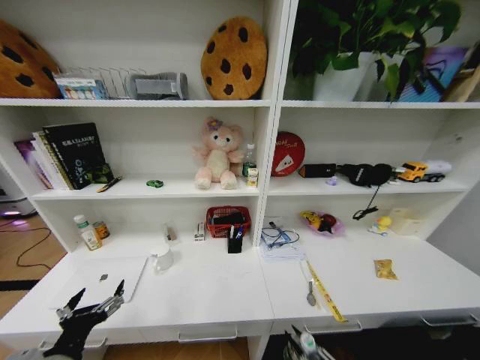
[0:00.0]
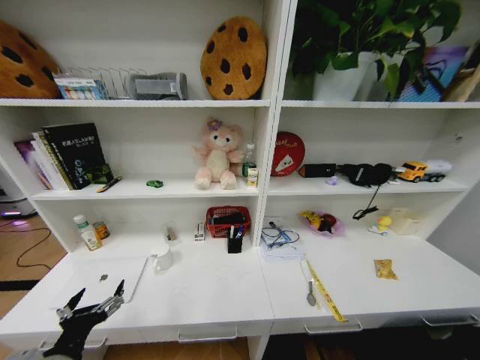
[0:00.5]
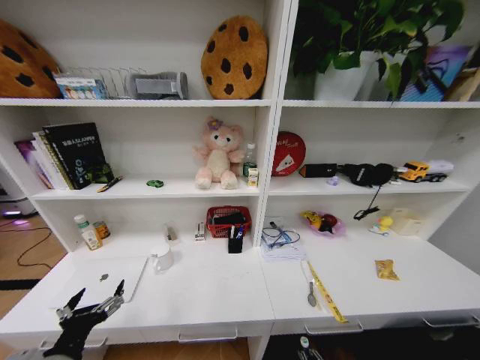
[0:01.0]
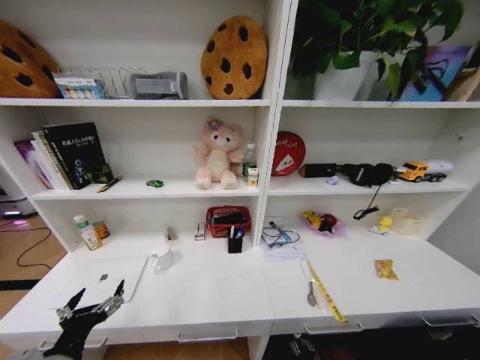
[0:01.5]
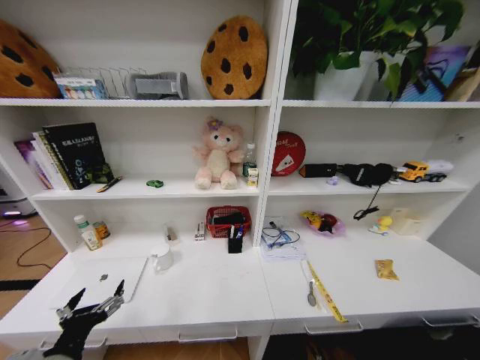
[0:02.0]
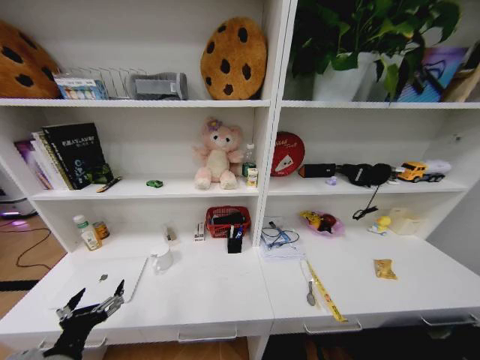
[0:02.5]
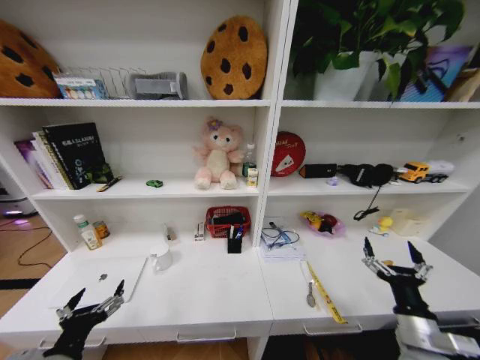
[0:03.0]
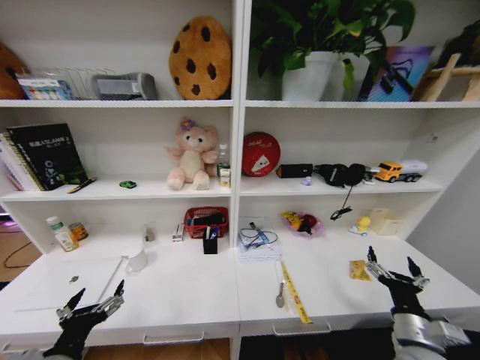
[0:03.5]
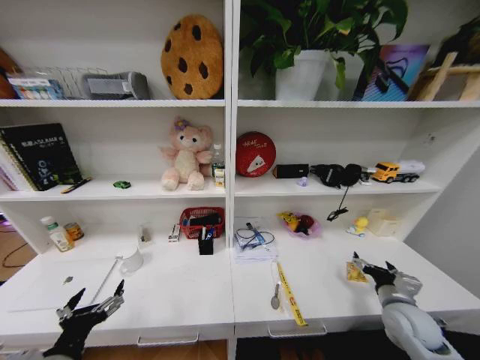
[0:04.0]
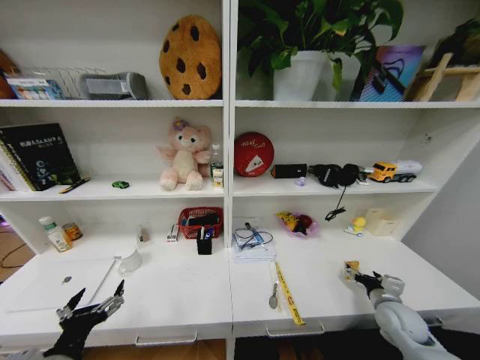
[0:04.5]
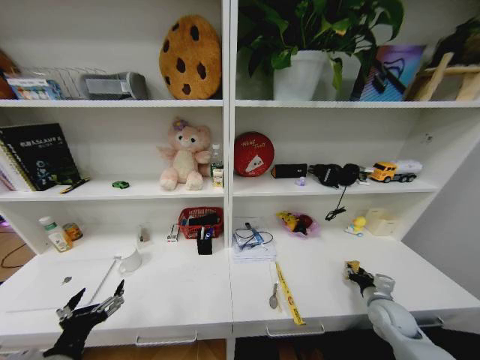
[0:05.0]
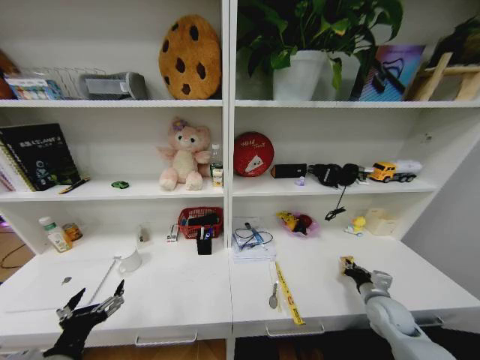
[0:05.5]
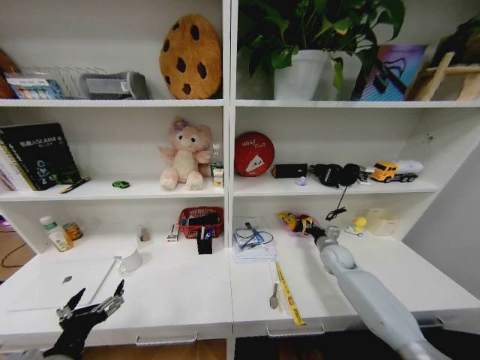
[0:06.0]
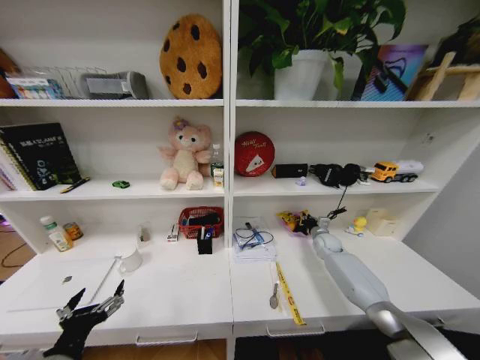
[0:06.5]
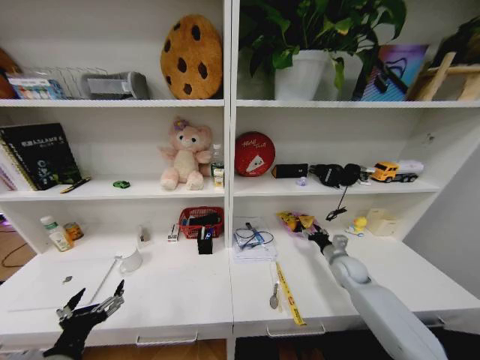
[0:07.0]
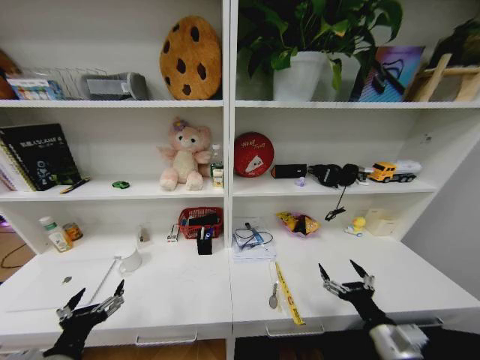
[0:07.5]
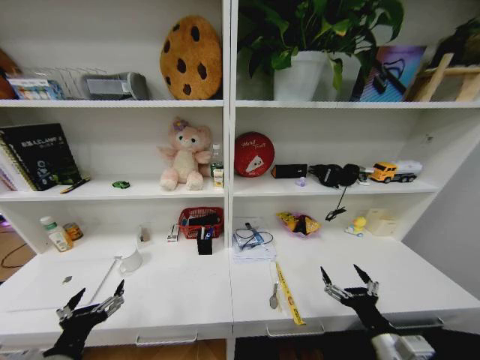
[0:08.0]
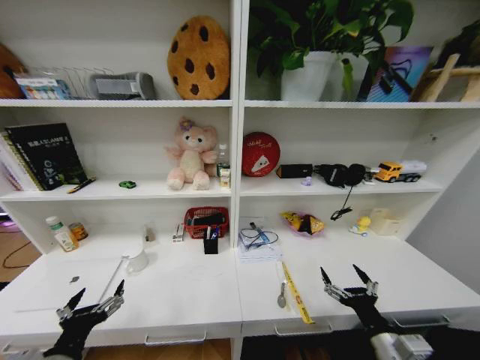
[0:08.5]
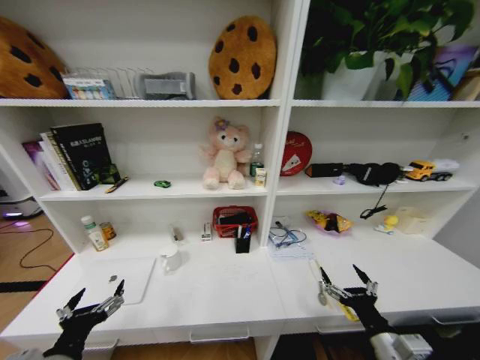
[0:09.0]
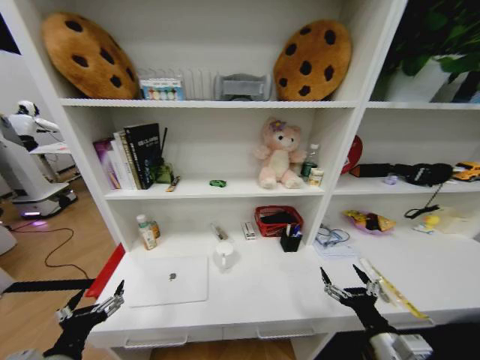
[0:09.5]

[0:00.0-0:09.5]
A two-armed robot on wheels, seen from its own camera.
Task of the whole recording: Organize the objects on the table.
0:00.0 to 0:02.0: The right gripper is displaced downward by about 35 cm, and opens.
0:02.0 to 0:04.0: The right gripper is displaced upward and forward by about 40 cm.
0:04.0 to 0:05.5: The right gripper goes about 5 cm downward, and closes.
0:05.5 to 0:07.5: The right gripper is displaced to the left and upward by roughly 10 cm, reaches approximately 25 cm forward, then returns, and opens.
0:07.5 to 0:09.5: The right gripper ends up roughly 5 cm from where it was.
